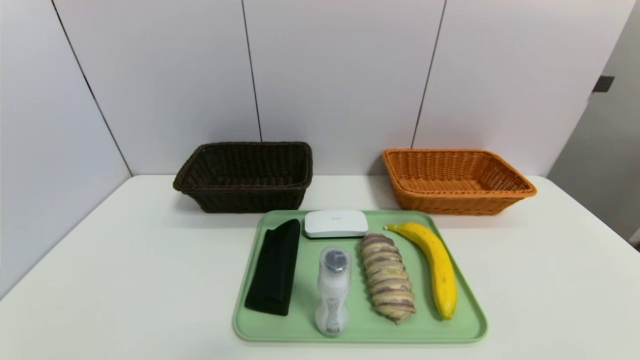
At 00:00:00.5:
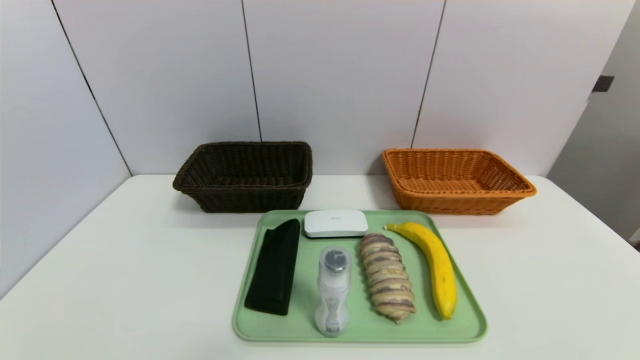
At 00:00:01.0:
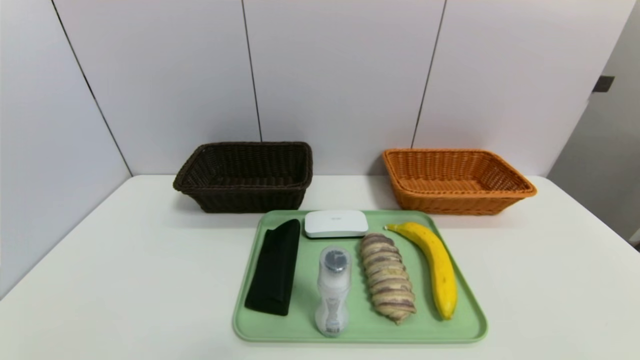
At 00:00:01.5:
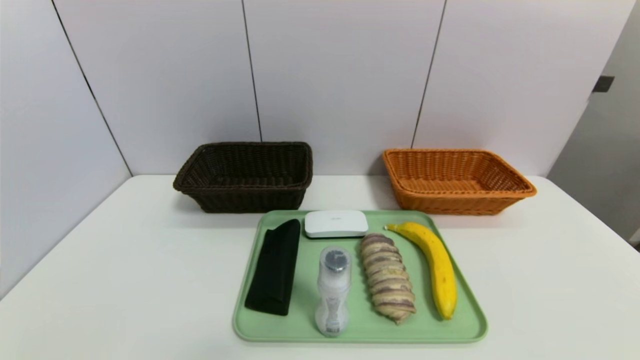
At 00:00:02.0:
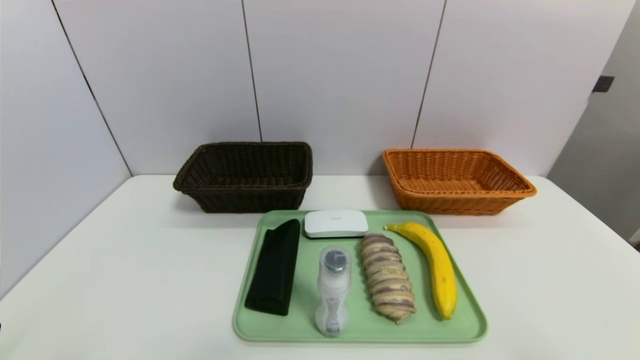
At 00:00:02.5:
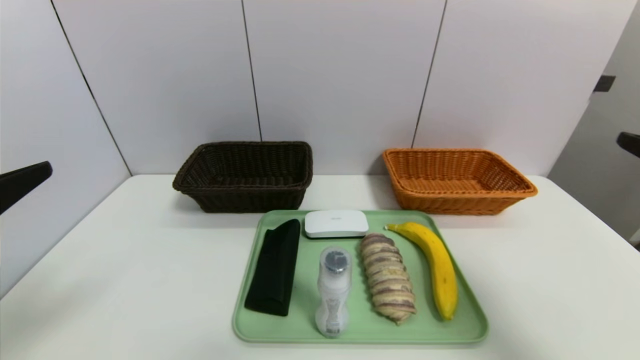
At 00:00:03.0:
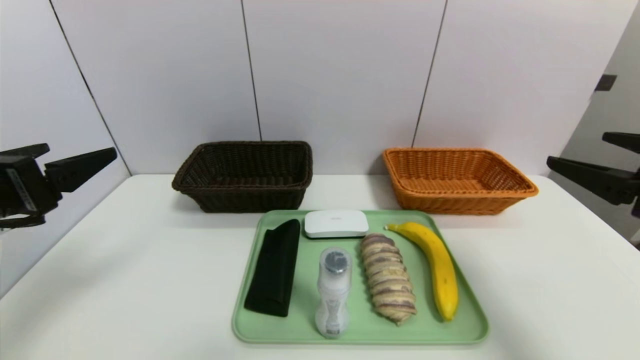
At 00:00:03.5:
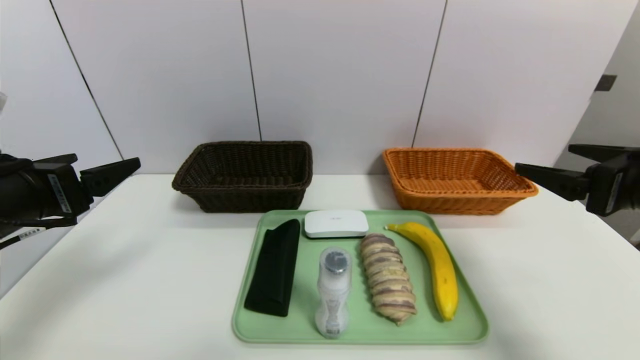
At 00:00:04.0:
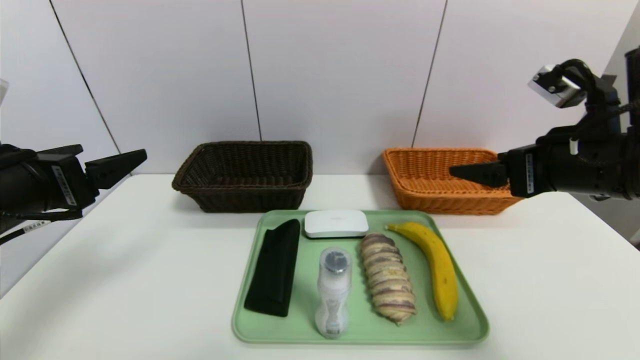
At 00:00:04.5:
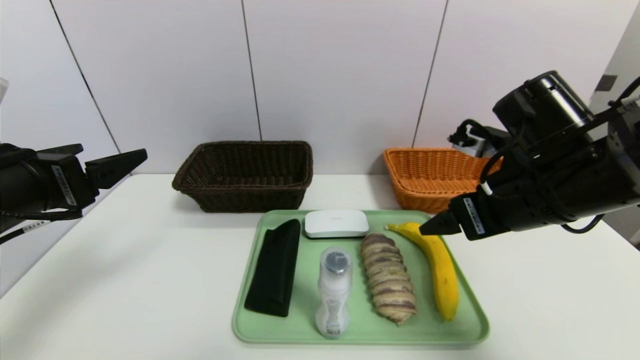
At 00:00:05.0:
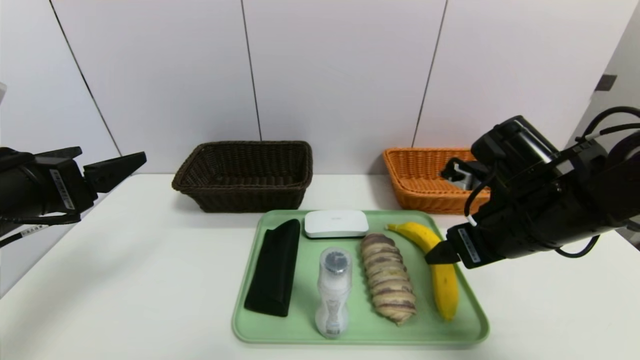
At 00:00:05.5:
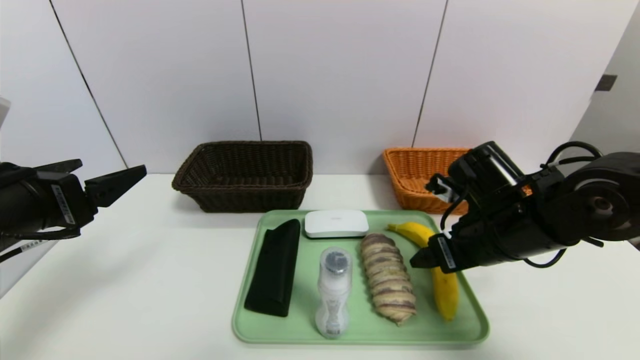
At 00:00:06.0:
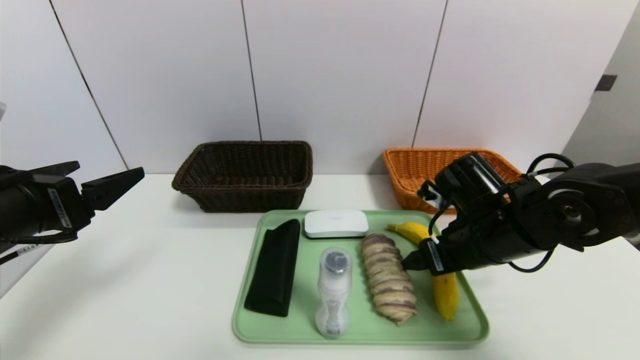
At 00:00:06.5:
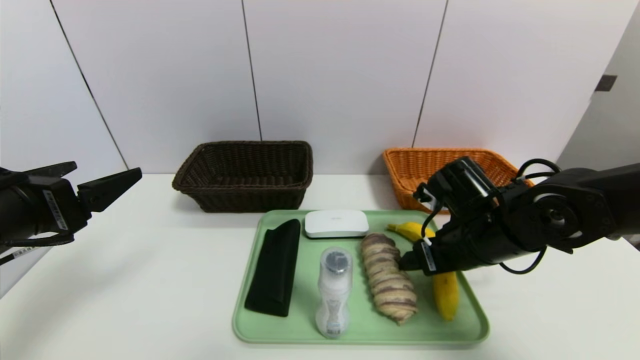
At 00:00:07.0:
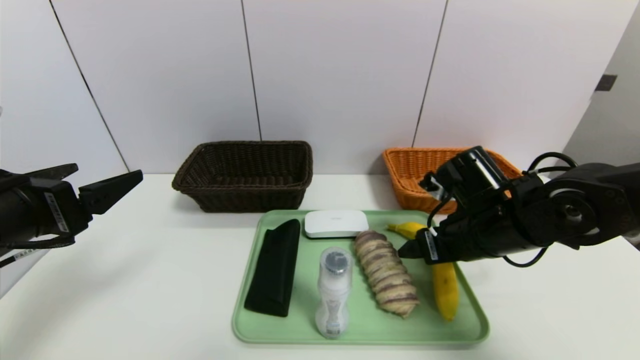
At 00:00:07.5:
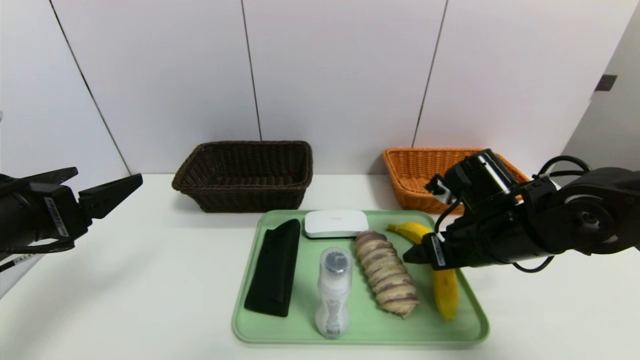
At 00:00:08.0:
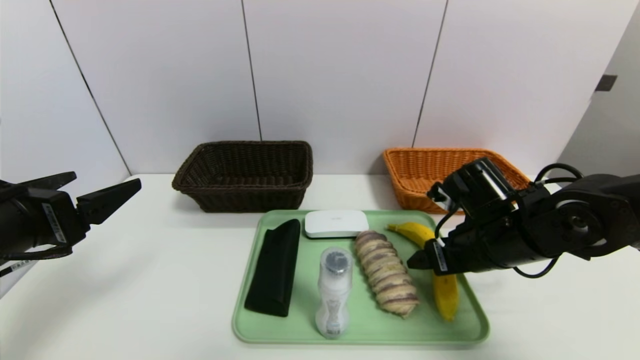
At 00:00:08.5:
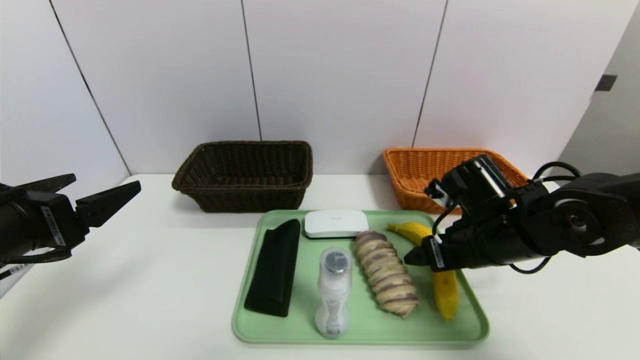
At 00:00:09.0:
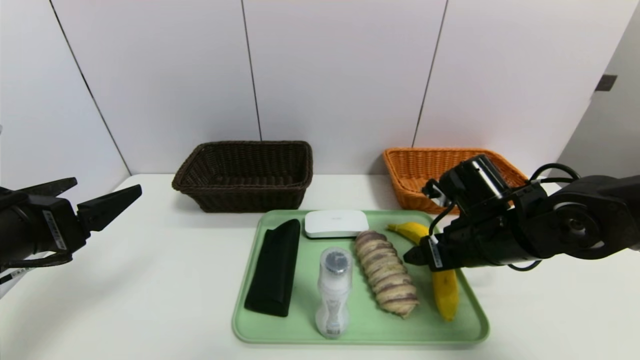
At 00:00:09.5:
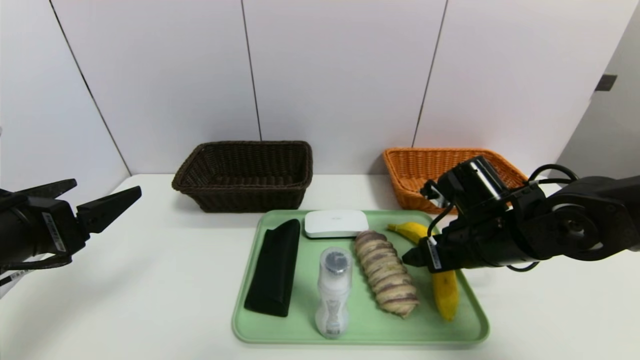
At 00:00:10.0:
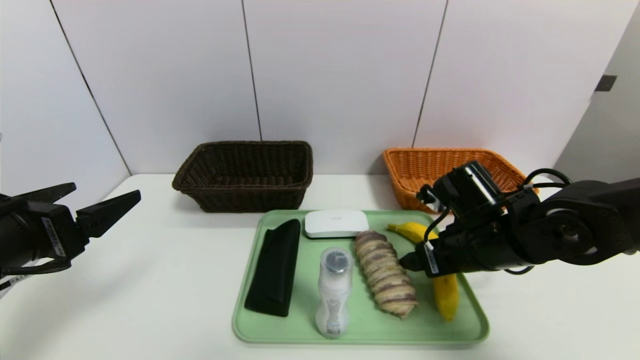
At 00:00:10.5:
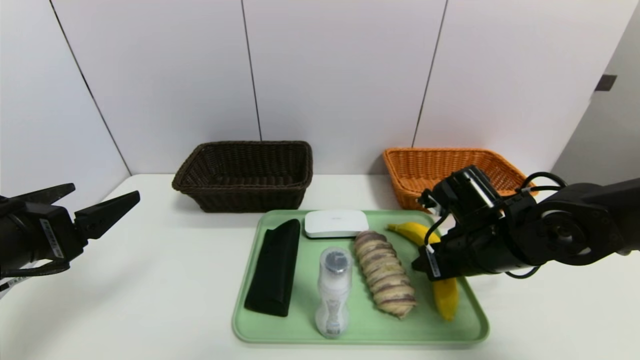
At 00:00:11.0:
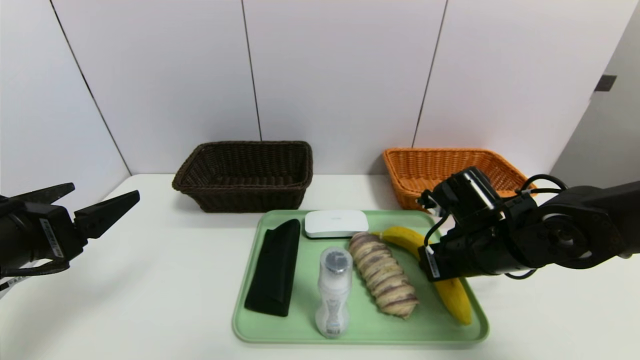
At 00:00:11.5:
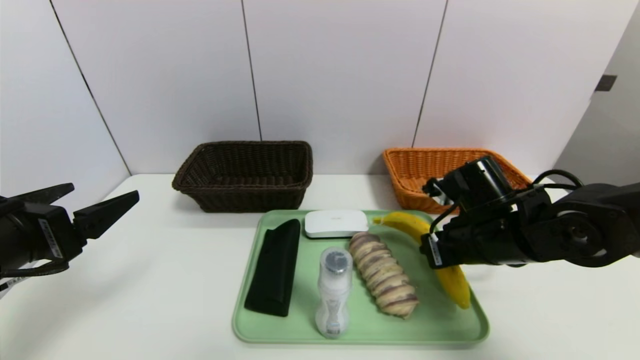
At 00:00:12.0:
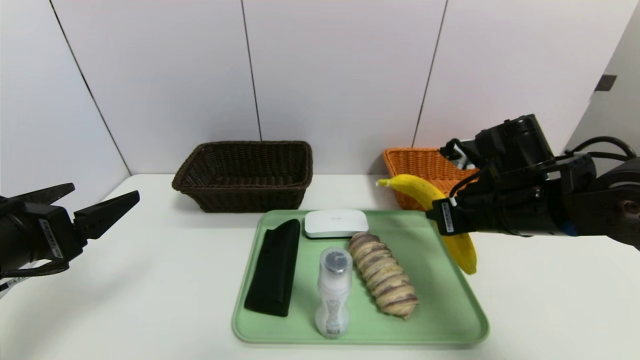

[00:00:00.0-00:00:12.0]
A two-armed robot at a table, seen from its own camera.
Task of the whole recording: place the food in the right basket with the right gripper, and place the non food items in the left basket with the left gripper.
00:00:02.0 to 00:00:04.0: Both grippers move forward, some 20 cm.
00:00:04.0 to 00:00:06.0: The right gripper moves downward and to the left, roughly 15 cm.
00:00:06.0 to 00:00:08.0: The grippers move only a little.
00:00:08.0 to 00:00:10.0: Both grippers stay put.
00:00:10.0 to 00:00:12.0: The right gripper shifts some 5 cm upward, and closes up.

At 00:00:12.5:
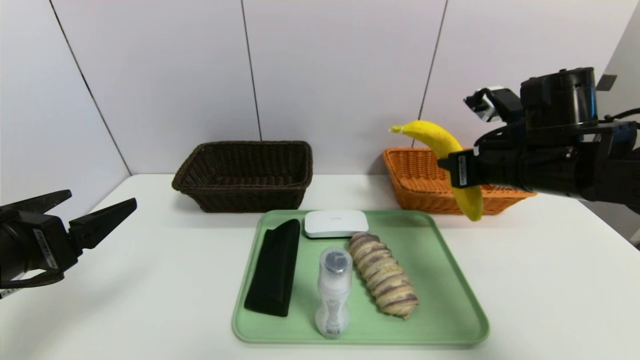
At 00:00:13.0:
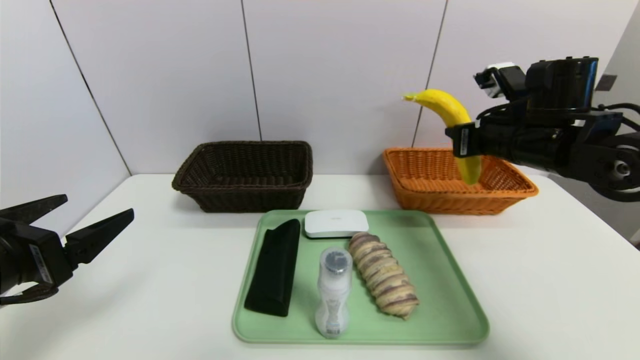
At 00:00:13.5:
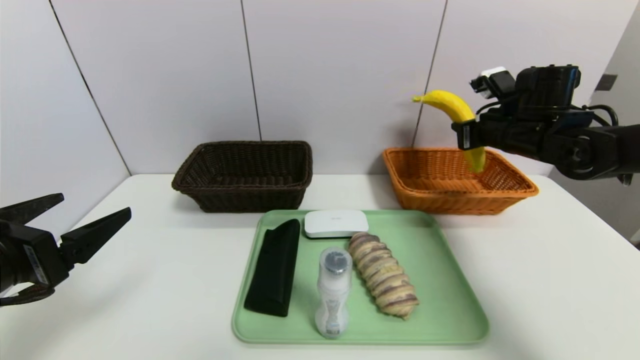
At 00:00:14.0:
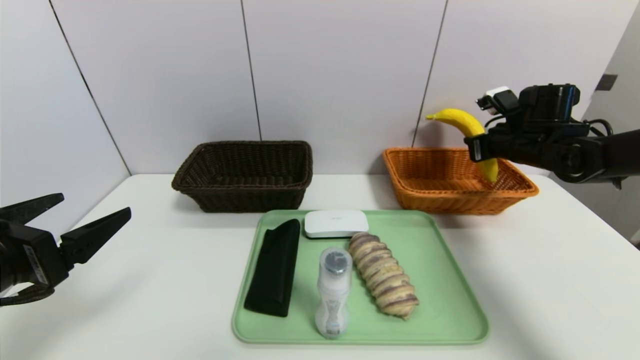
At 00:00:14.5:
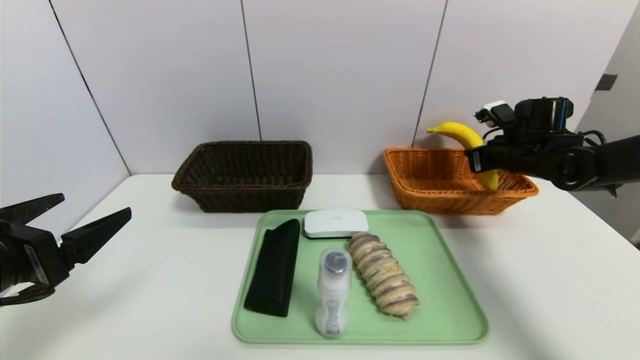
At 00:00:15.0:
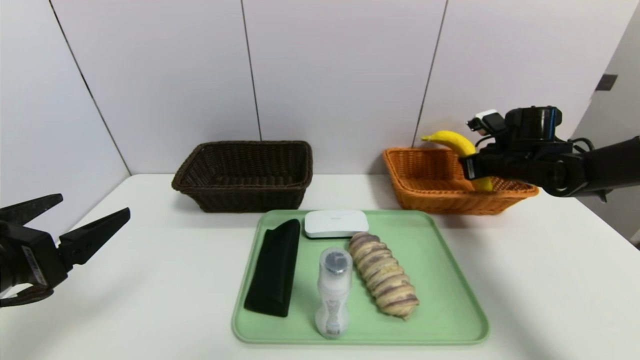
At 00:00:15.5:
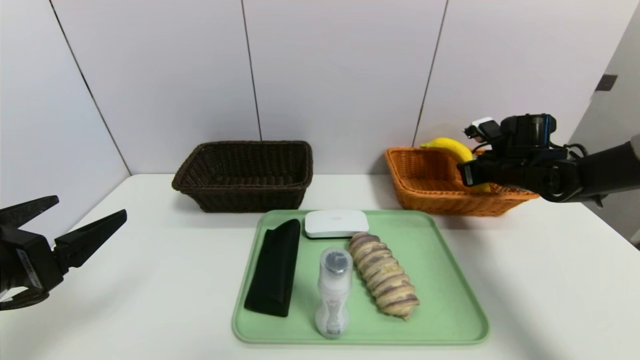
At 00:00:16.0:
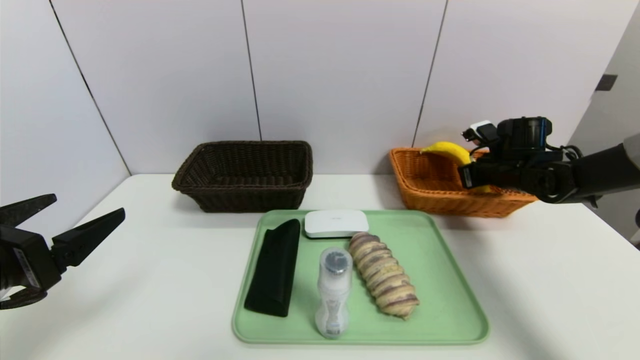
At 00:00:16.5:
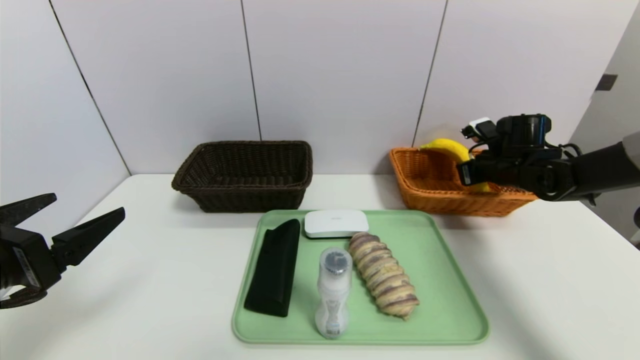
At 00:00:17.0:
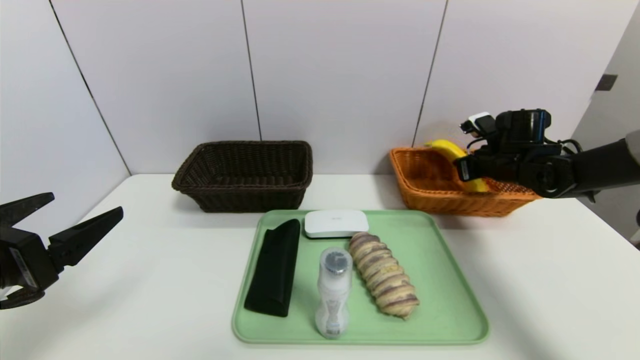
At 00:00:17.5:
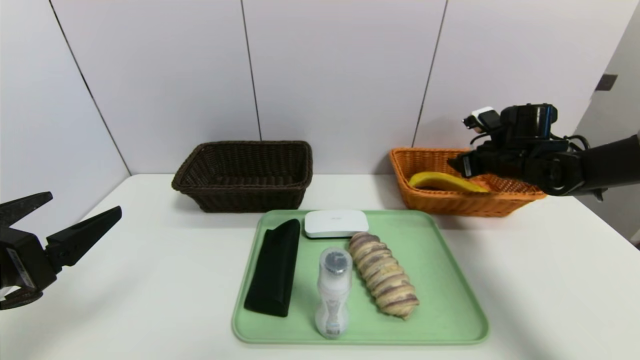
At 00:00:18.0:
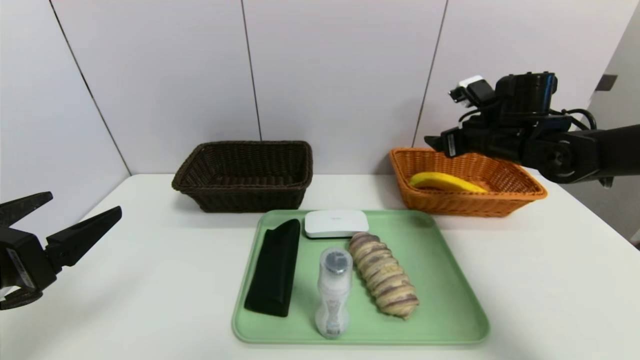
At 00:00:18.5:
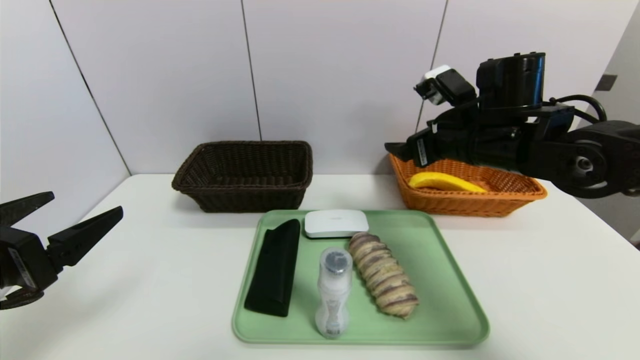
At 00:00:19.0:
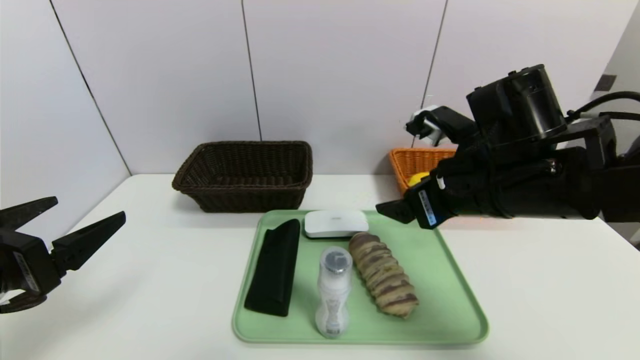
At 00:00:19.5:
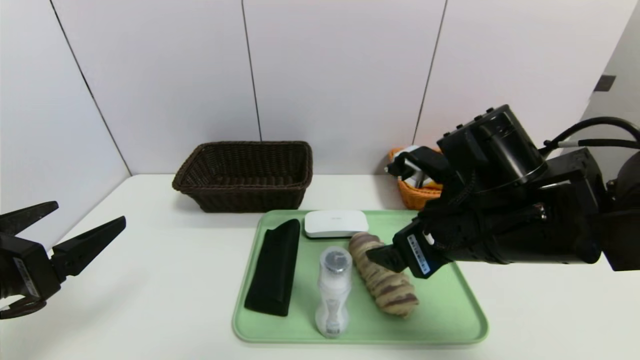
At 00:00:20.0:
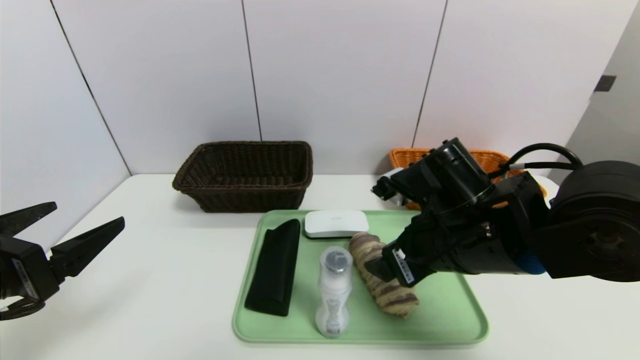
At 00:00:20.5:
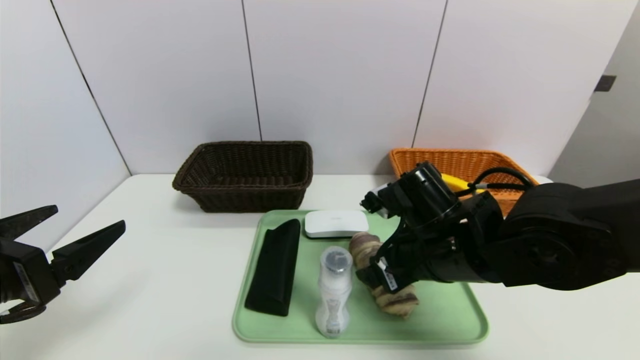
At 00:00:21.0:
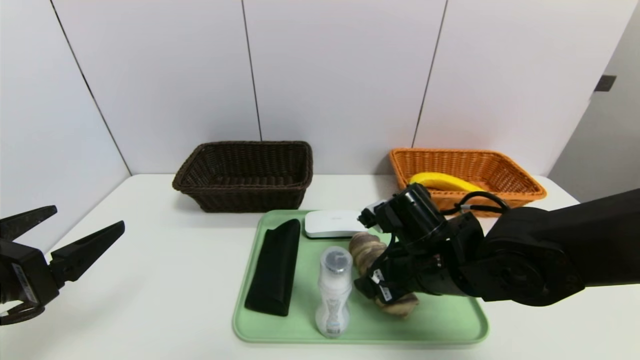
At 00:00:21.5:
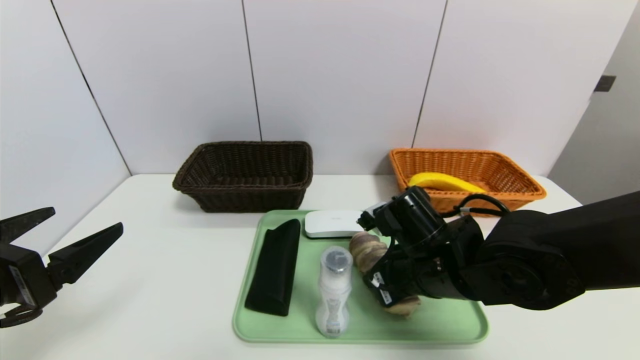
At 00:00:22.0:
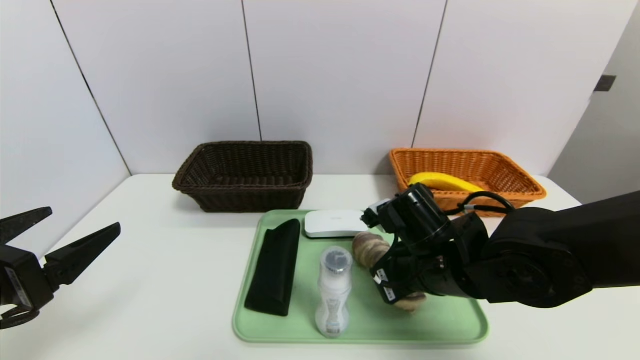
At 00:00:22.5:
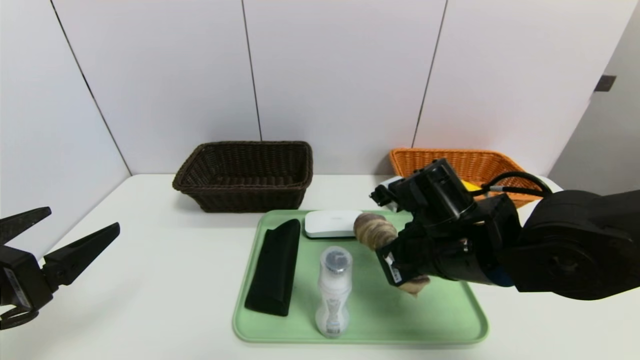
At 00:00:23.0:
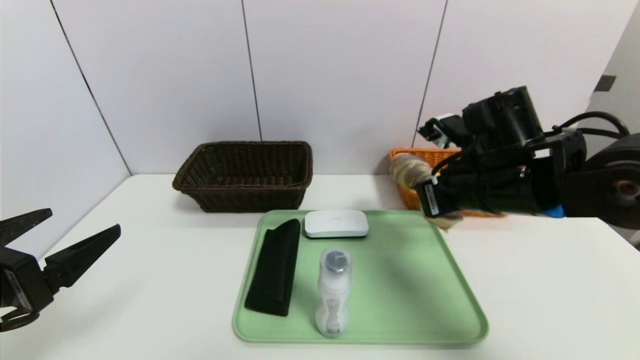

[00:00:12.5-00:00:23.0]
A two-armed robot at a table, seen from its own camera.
Task of the whole recording: place the food in the right basket with the right gripper, and place the non food items in the left basket with the left gripper.
Step, 00:00:12.5 to 00:00:17.0: Grasp the banana and put it in the right basket.
00:00:12.5 to 00:00:14.5: The right gripper shifts roughly 20 cm forward, to the right and downward.
00:00:14.5 to 00:00:16.5: The grippers make only small movements.
00:00:16.5 to 00:00:19.0: The right gripper goes about 25 cm backward, to the left and upward, and opens.
00:00:19.0 to 00:00:21.0: The right gripper is displaced downward by approximately 10 cm.
00:00:21.0 to 00:00:23.0: The right gripper shifts about 10 cm upward and to the right, and closes.
